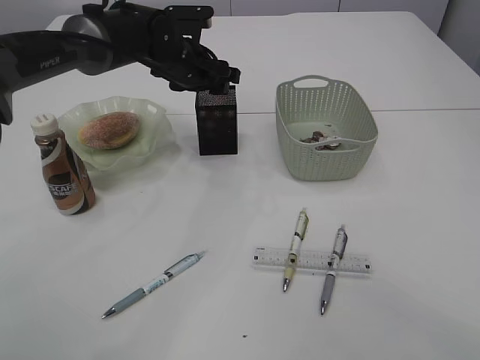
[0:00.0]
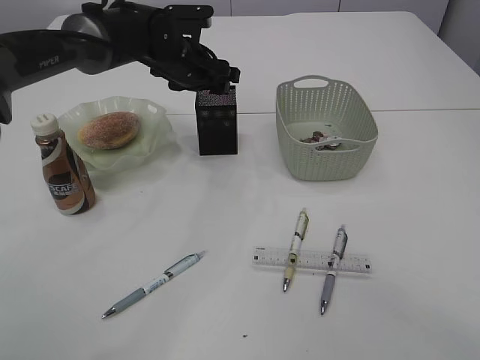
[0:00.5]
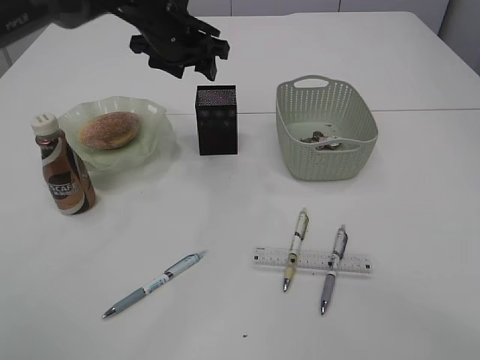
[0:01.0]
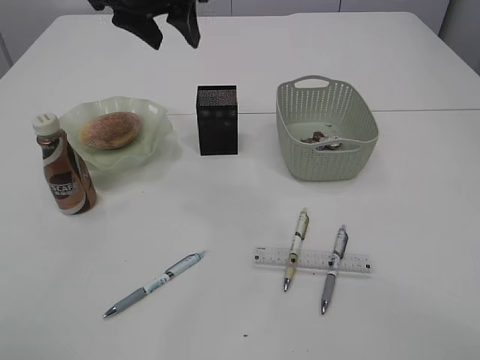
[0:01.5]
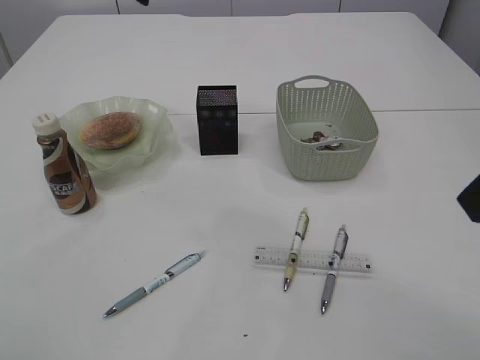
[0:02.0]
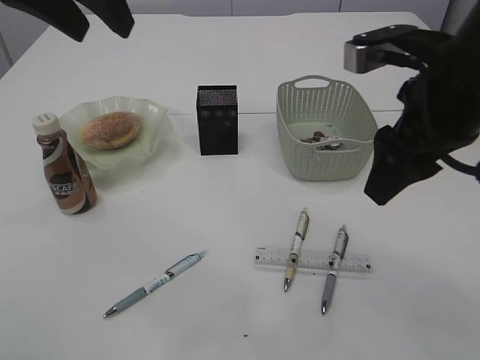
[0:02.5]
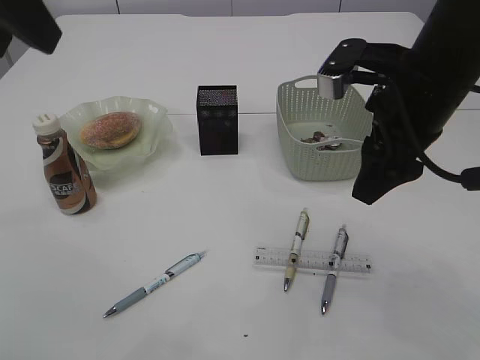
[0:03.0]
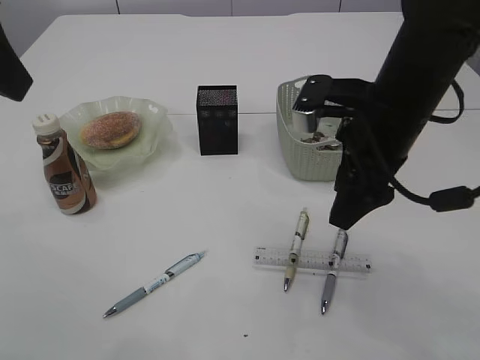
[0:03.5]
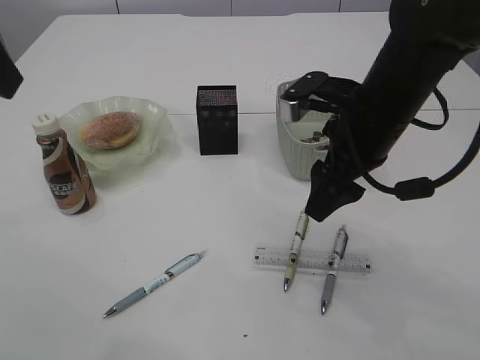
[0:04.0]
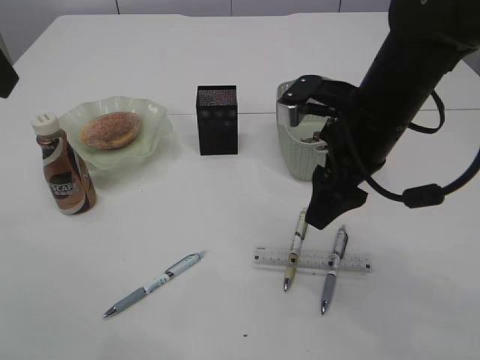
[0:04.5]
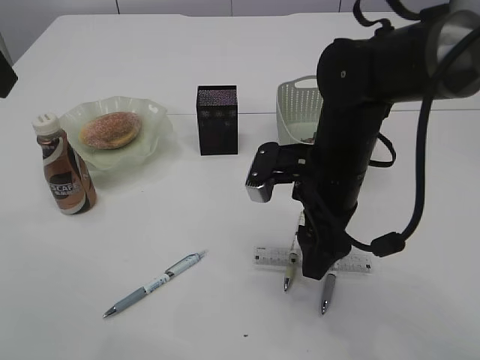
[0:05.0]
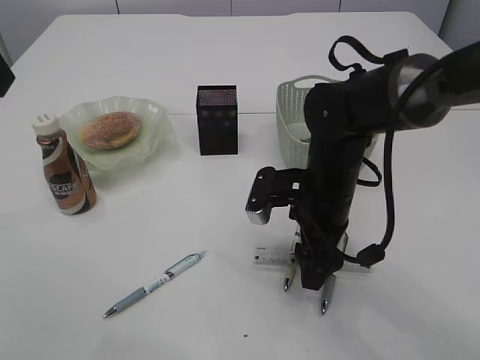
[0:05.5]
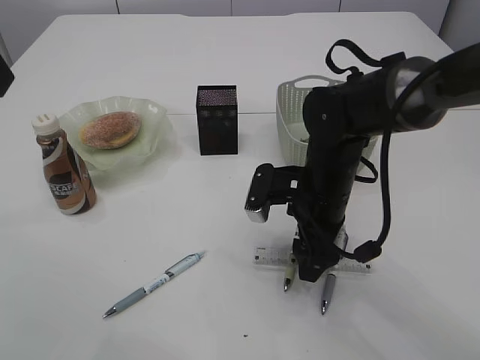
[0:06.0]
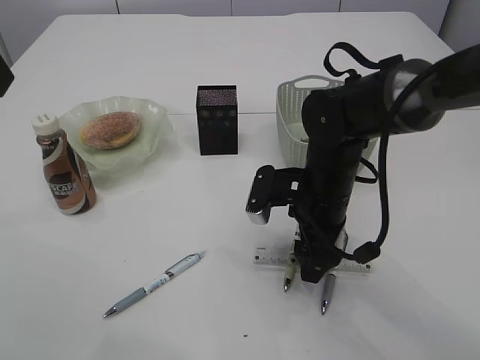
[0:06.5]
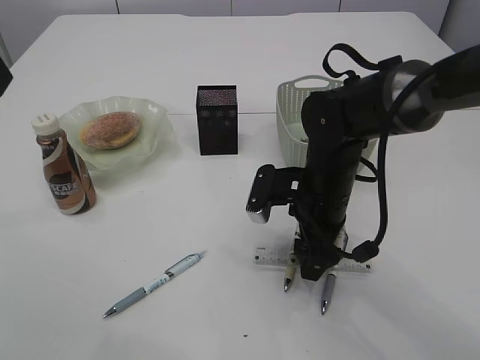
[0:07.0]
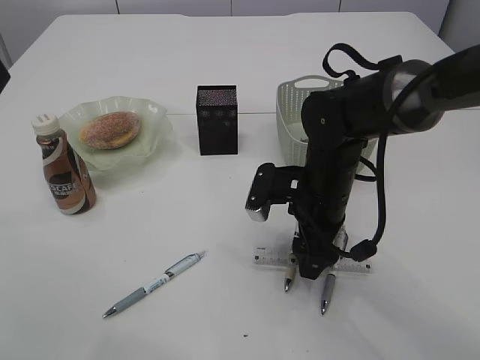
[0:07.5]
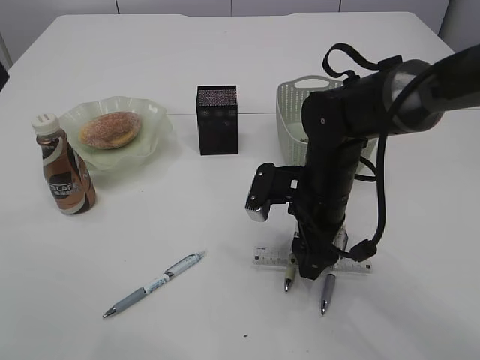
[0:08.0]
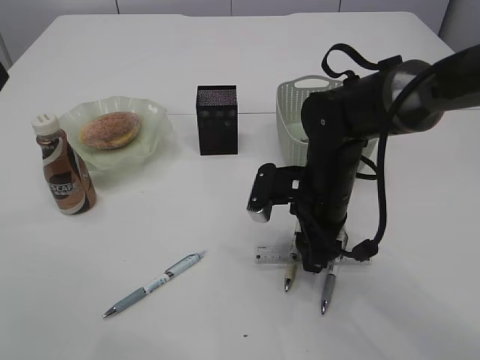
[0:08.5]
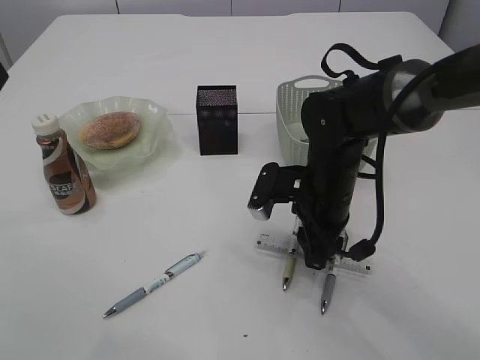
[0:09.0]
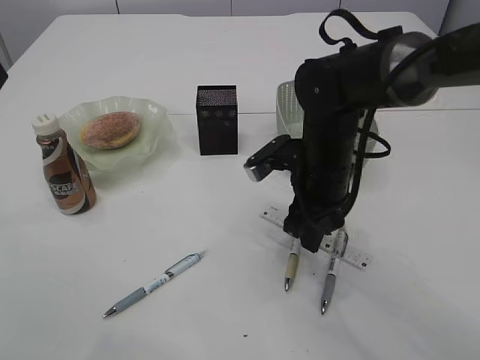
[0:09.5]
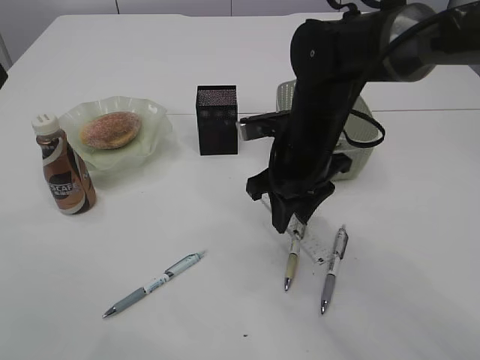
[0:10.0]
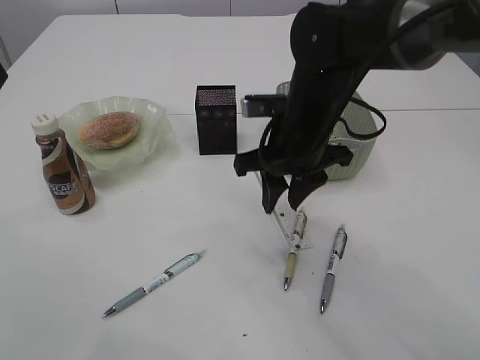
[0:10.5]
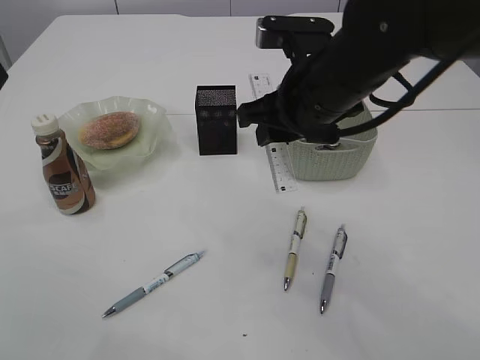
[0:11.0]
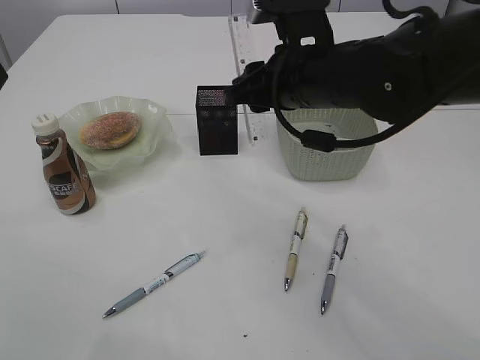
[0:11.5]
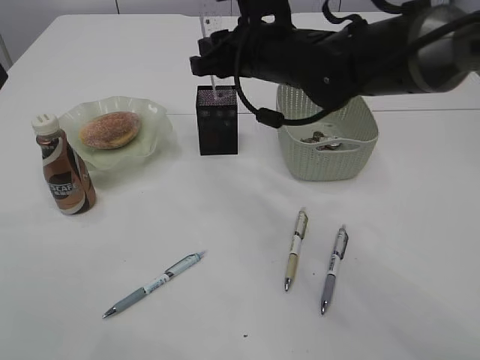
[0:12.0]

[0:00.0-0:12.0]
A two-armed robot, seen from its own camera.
Step, 0:01.0 to 0:10.0: pick up the ruler.
0:00.0 to 0:02.0: The left gripper is displaced upward and backward by some 25 cm, while the right gripper is displaced forward by about 5 cm.
0:02.0 to 0:04.0: The right gripper is displaced forward, downward and to the left by approximately 20 cm. The left gripper goes approximately 20 cm backward and to the left.
0:04.0 to 0:06.0: The right gripper is displaced downward by roughly 10 cm.
0:06.0 to 0:08.0: The two grippers keep their place.
0:08.0 to 0:10.0: The right gripper moves upward, about 5 cm, and closes.
0:10.0 to 0:12.0: The right gripper heads upward, covering some 5 cm.

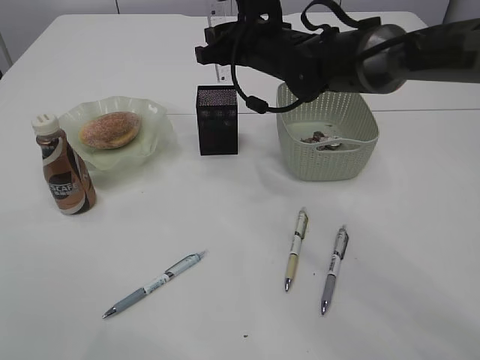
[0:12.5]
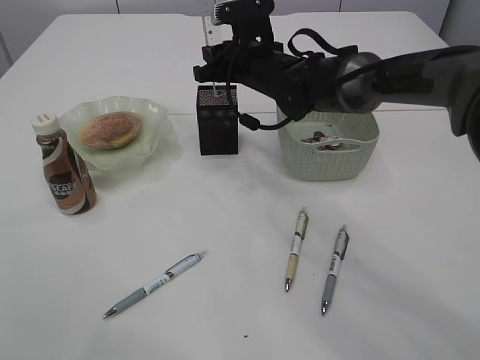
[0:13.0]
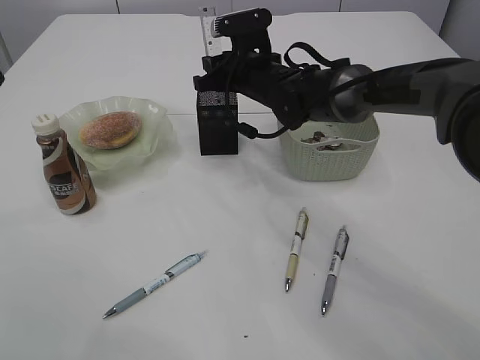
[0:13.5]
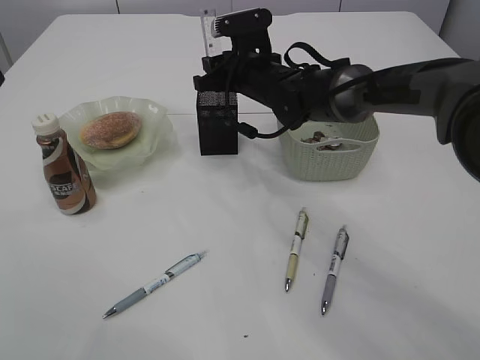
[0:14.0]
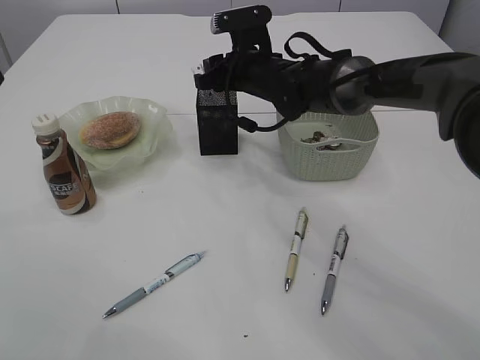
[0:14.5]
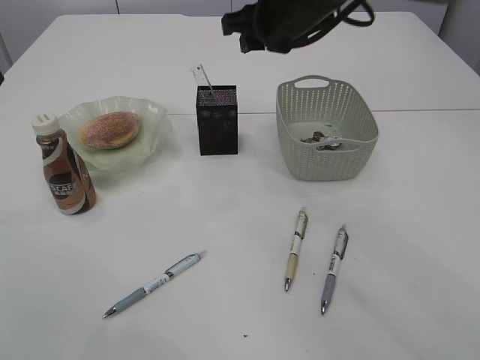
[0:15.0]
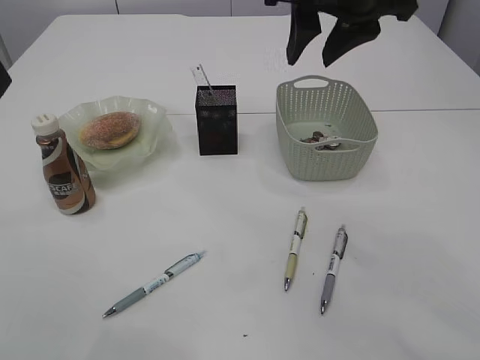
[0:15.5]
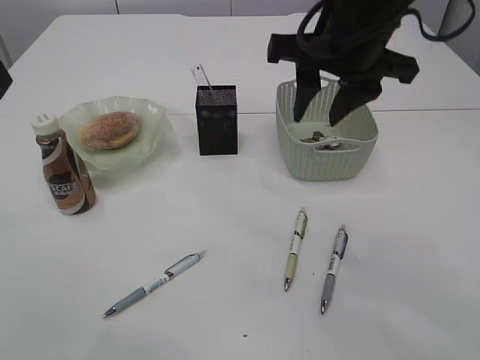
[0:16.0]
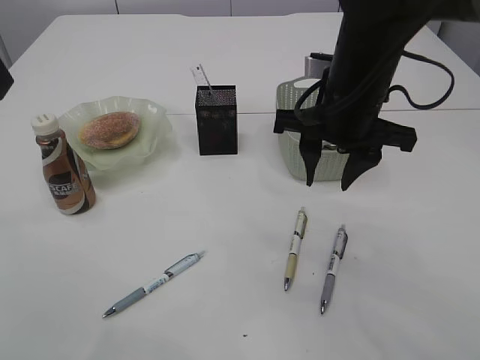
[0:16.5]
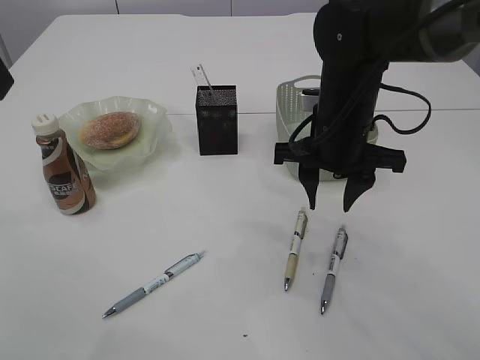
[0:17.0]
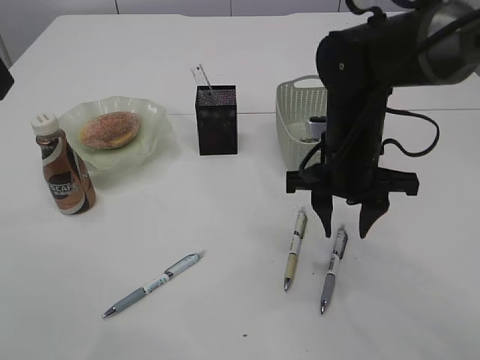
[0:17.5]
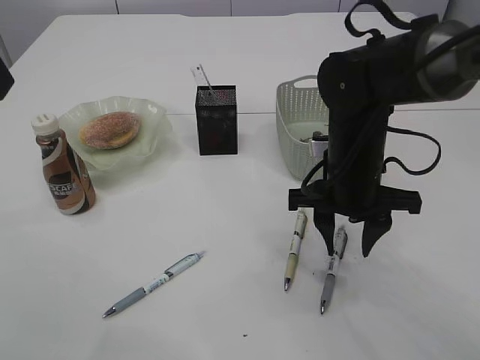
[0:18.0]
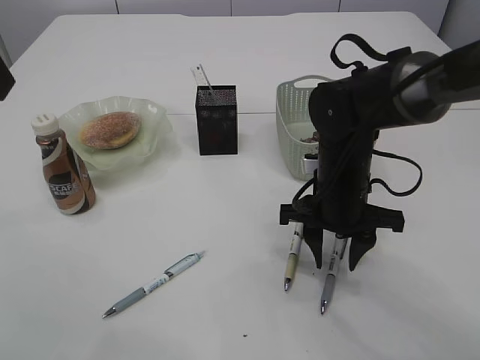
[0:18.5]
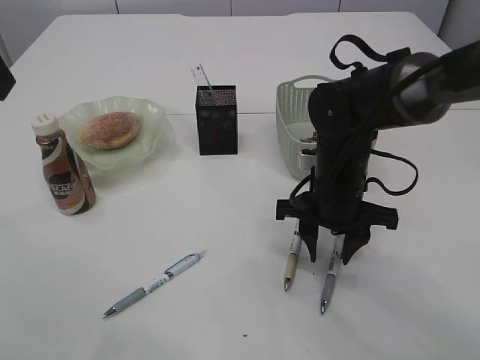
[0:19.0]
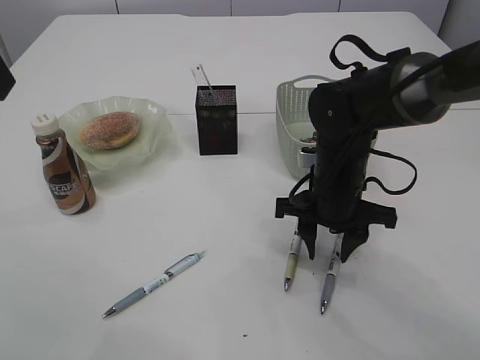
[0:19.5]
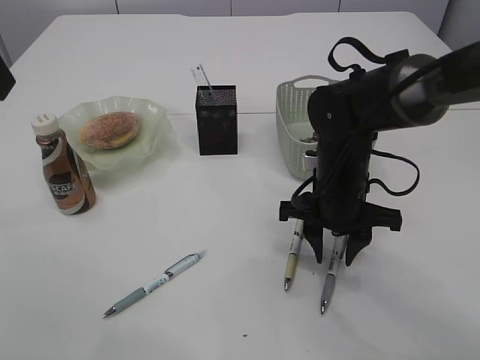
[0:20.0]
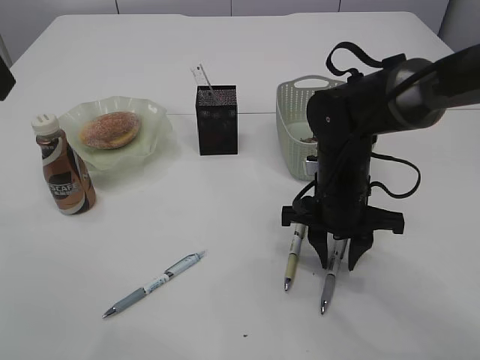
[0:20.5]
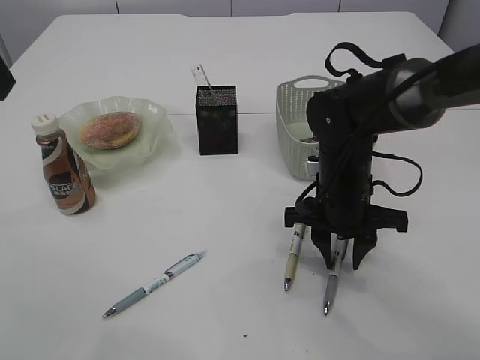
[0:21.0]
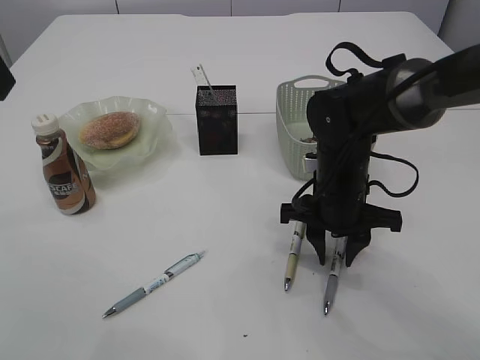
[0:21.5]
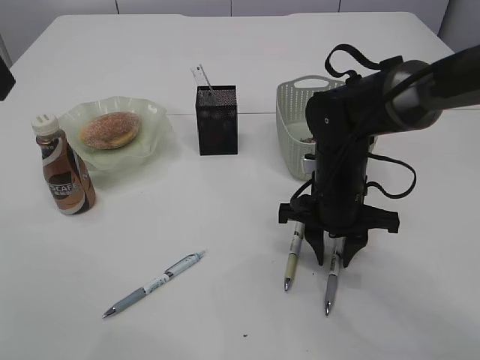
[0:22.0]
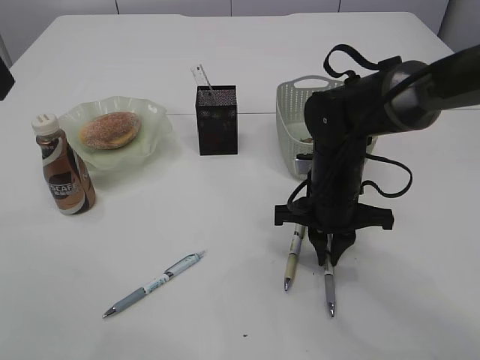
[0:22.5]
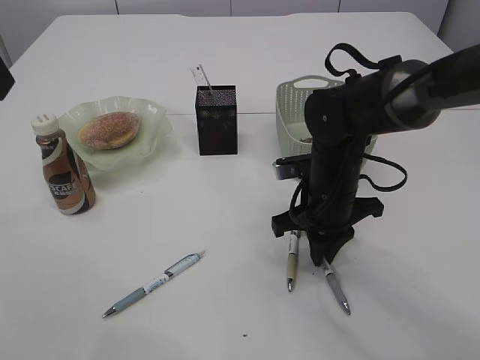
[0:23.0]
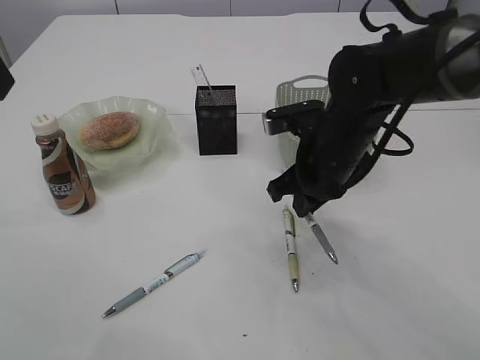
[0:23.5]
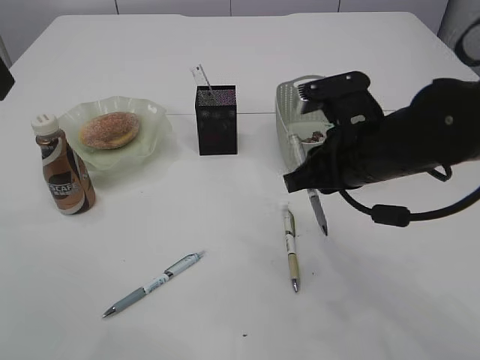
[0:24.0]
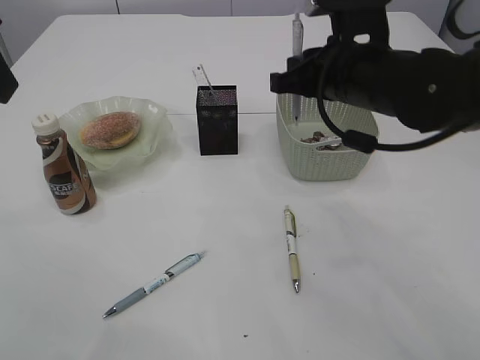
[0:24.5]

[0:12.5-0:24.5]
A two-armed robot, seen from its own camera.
Step, 0:12.5 to 0:14.5: Place the ruler into the pen holder.
Step, 0:15.0 to 0:24.0: Pick up the pen with right arm.
0:12.5 to 0:14.5: The right gripper ends up approximately 5 cm from where it was.
0:14.5 to 0:16.5: The right gripper heads backward, to the right and upward, covering about 20 cm.
0:16.5 to 0:18.5: The right gripper heads downward, covering roughly 10 cm.
0:18.5 to 0:20.5: Both grippers stay put.
0:20.5 to 0:22.5: The right gripper closes its fingers.
0:22.5 to 0:24.5: The right gripper shifts roughly 15 cm upward.

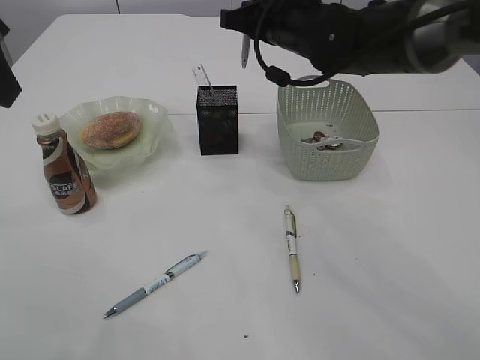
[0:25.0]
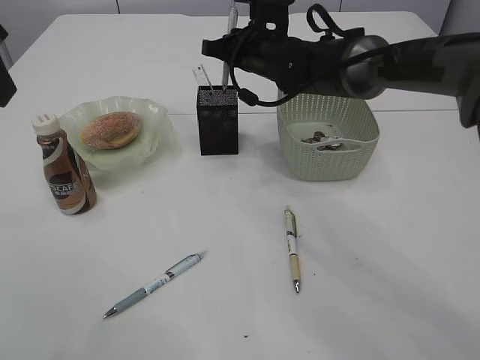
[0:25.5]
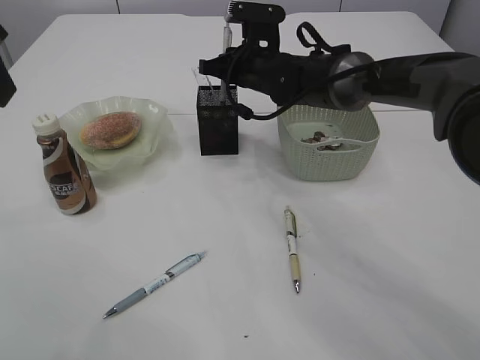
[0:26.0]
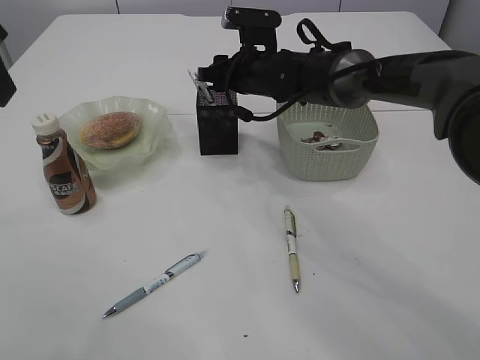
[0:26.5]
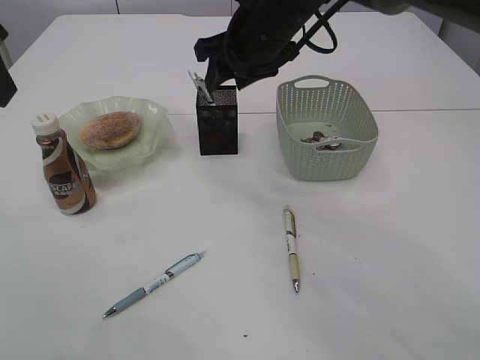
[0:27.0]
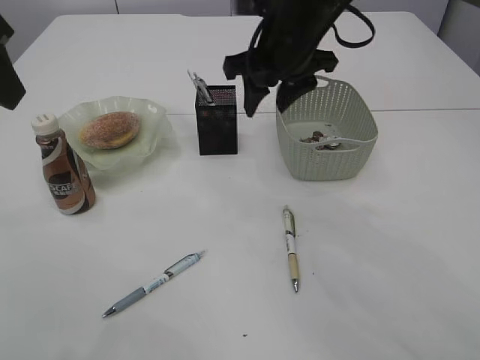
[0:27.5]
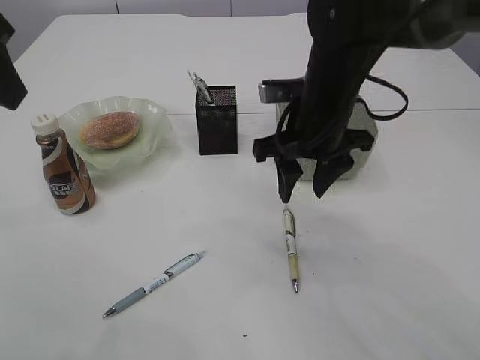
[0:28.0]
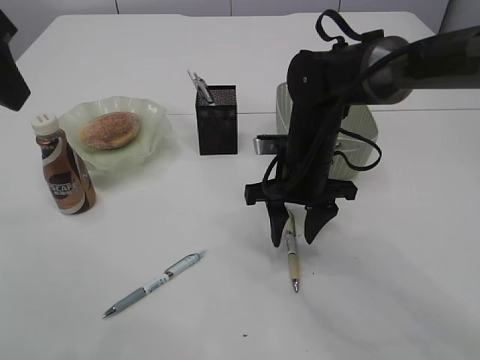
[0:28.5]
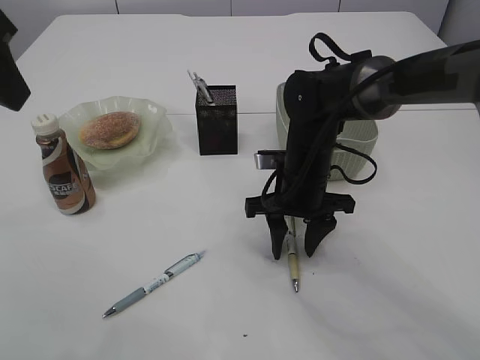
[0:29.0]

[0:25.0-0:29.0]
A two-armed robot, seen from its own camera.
Step, 0:25.0 to 0:27.0: Place the pen into the pen holder.
0:25.0 to 0:27.0: The right gripper moves approximately 10 cm downward and comes back, and opens its fingers.
0:27.0 to 0:29.0: The right gripper heads downward and backward, covering some 15 cm.
